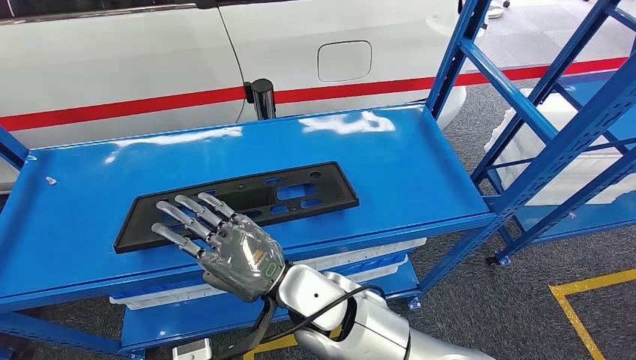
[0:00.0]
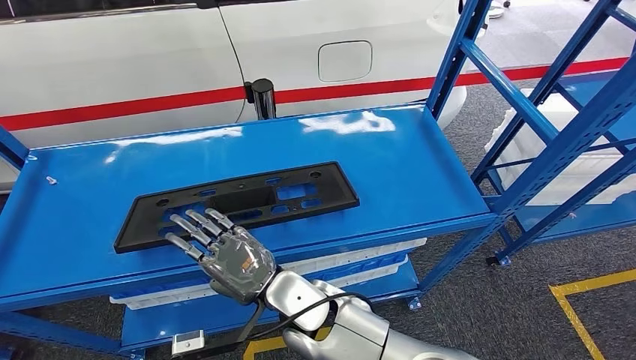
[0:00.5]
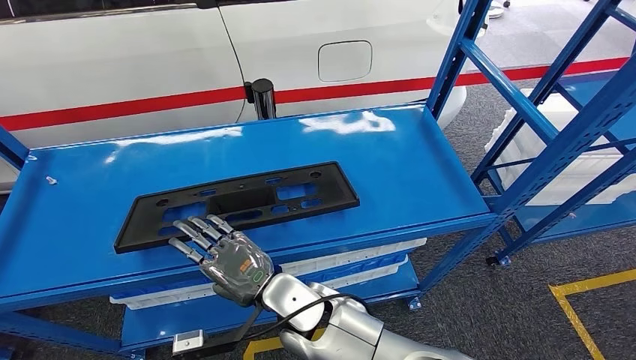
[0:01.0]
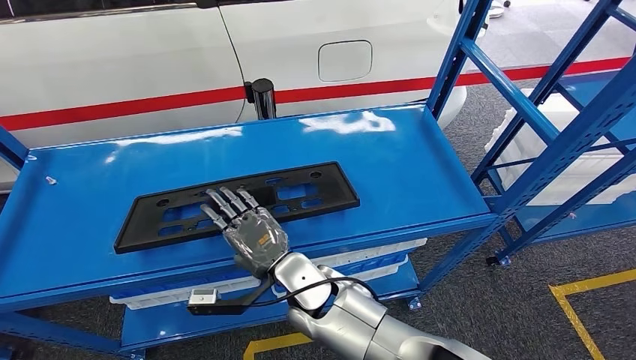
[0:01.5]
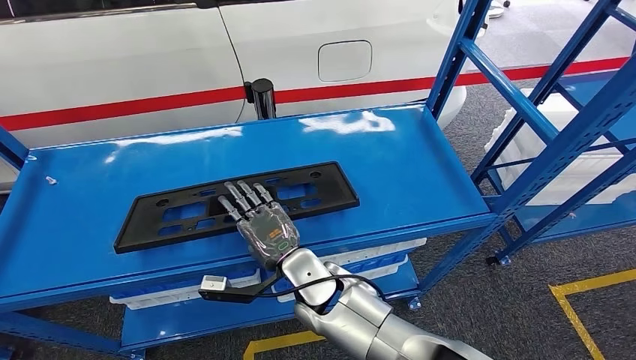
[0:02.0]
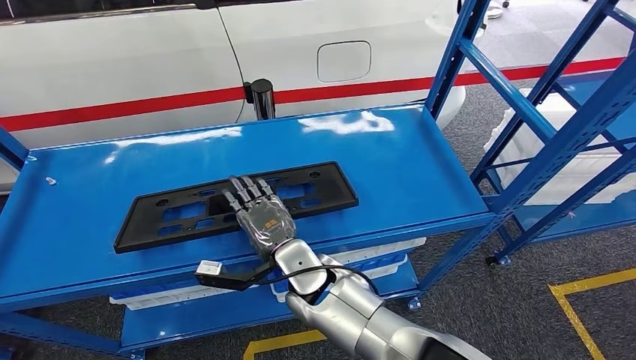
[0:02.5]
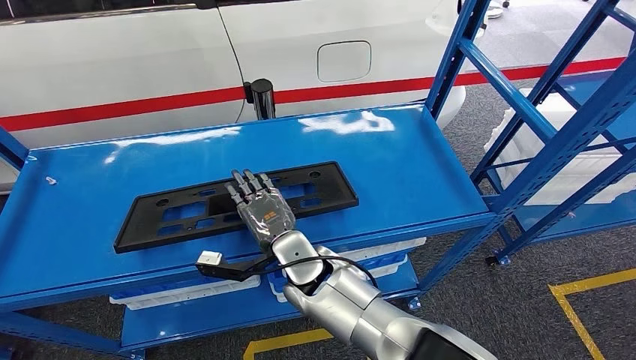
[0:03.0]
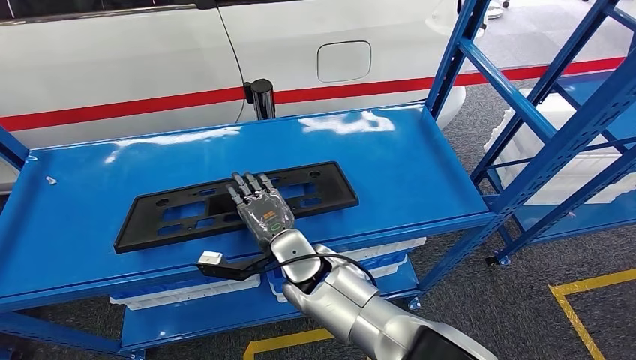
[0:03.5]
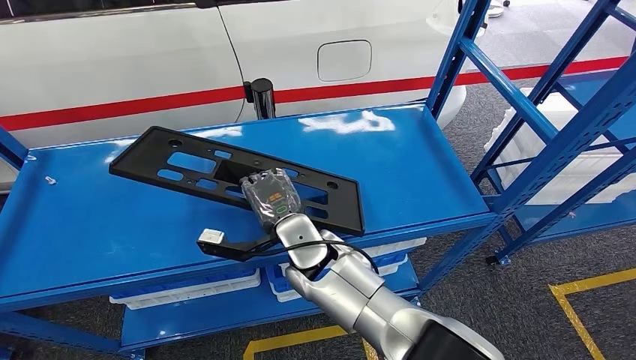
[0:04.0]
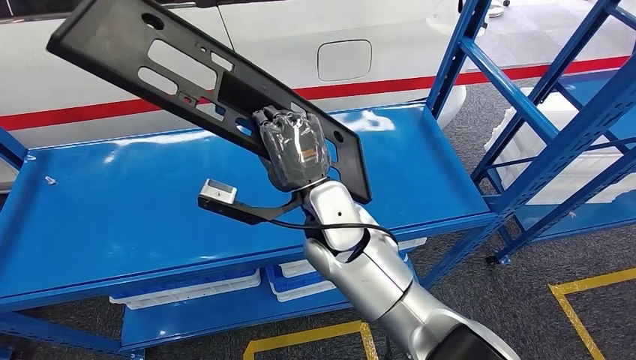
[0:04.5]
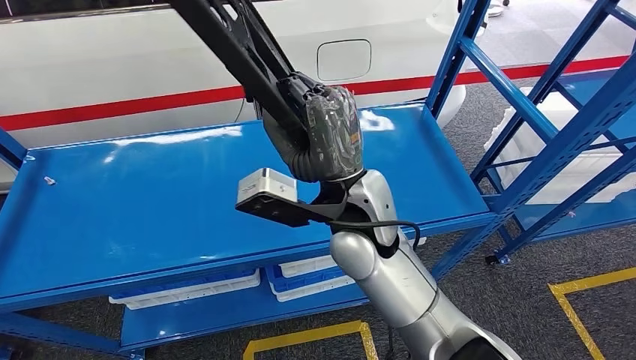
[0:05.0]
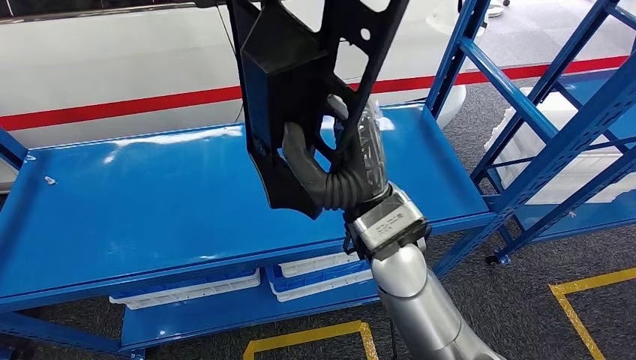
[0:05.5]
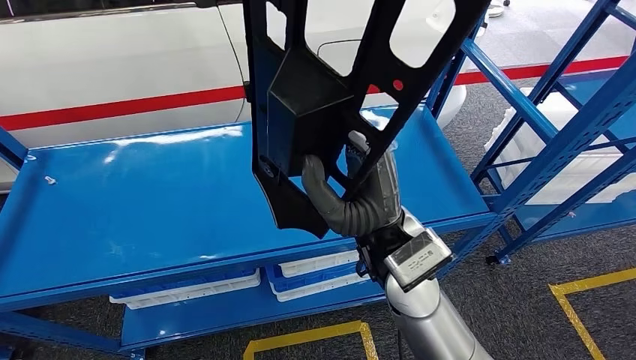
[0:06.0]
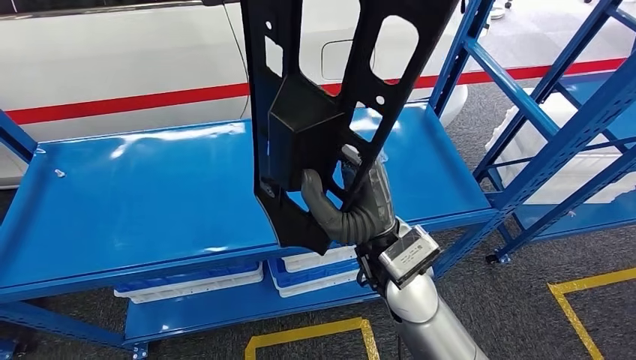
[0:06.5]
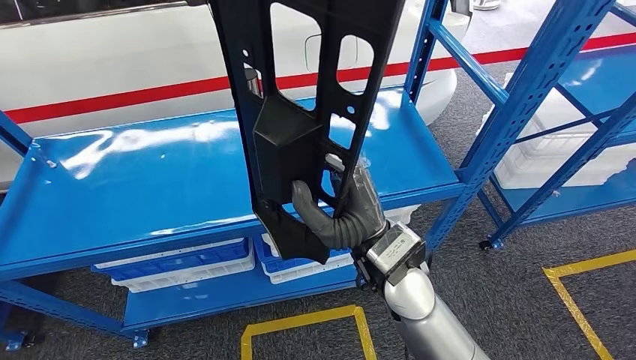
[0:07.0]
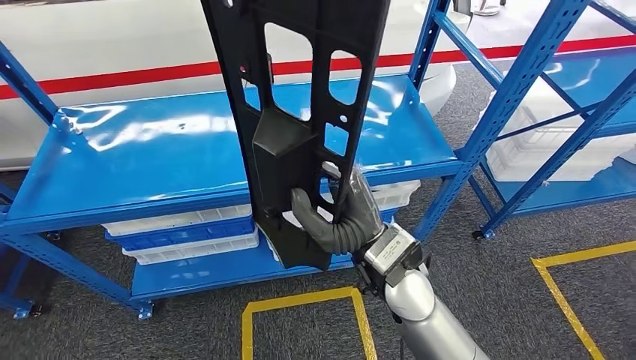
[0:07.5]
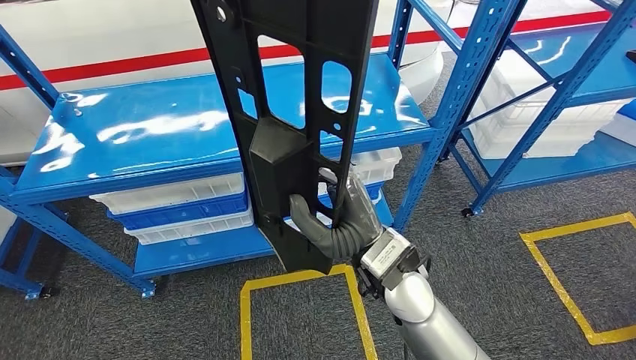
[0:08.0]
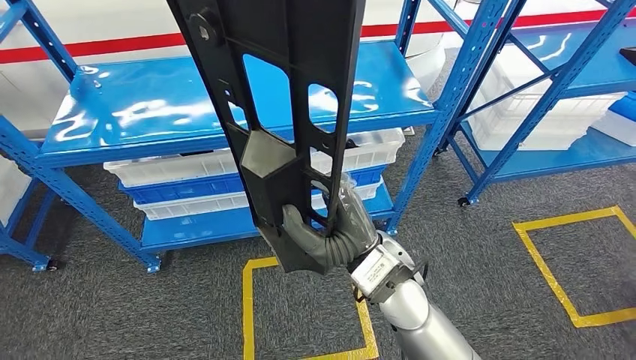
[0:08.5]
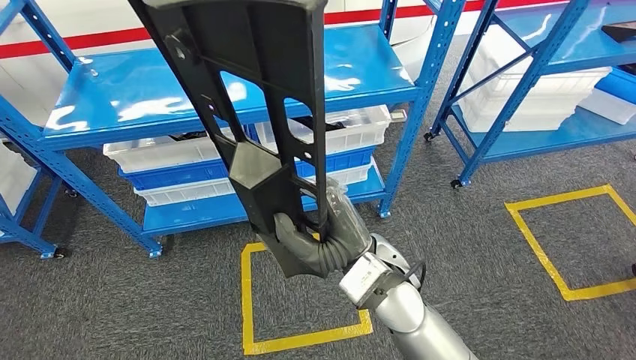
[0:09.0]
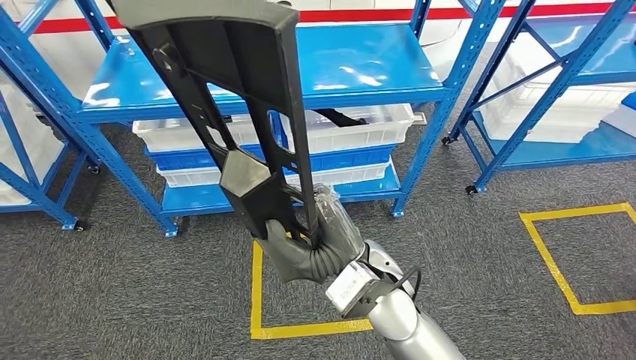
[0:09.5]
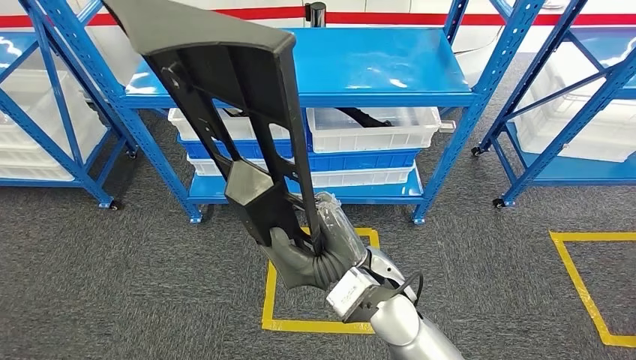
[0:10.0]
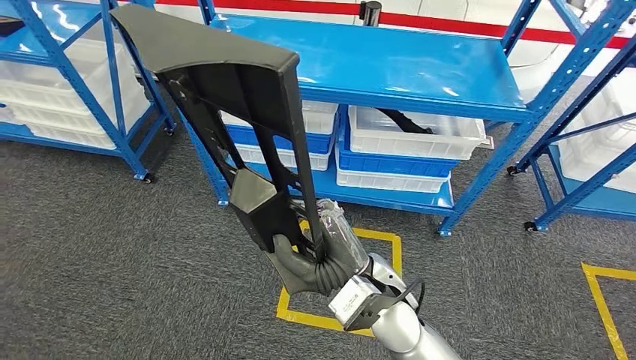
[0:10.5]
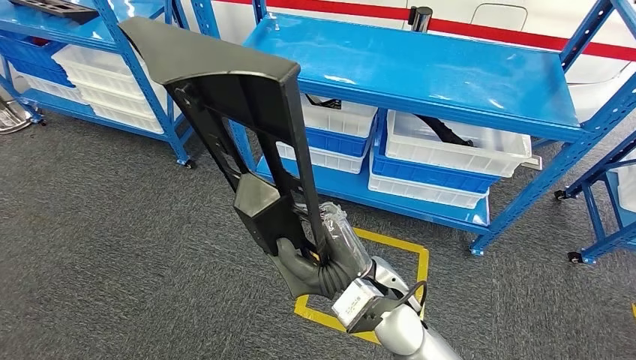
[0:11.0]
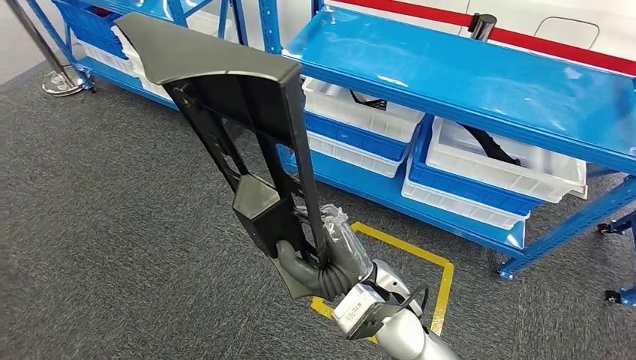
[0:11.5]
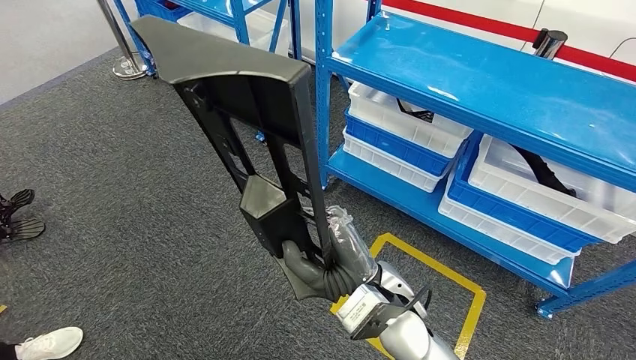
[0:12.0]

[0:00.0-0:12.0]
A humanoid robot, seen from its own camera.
Step, 0:00.0 to 0:08.0: Pick up the large material from the shelf.
0:00.0 to 0:02.0: The right hand heads downward, covering roughly 5 cm.
0:02.0 to 0:04.0: The right hand ends up roughly 5 cm from where it was.

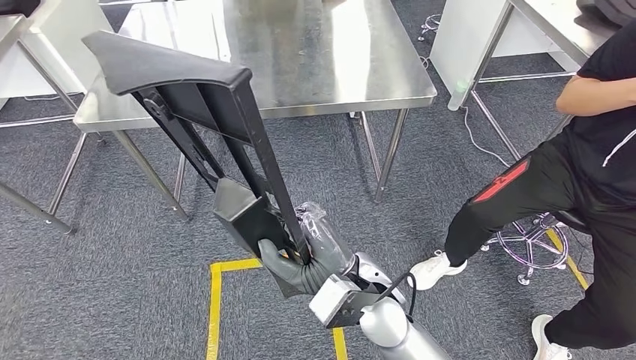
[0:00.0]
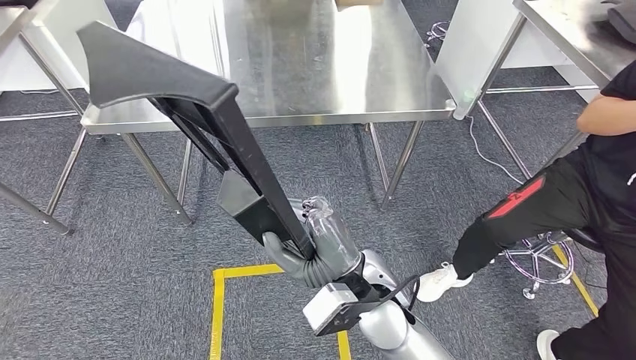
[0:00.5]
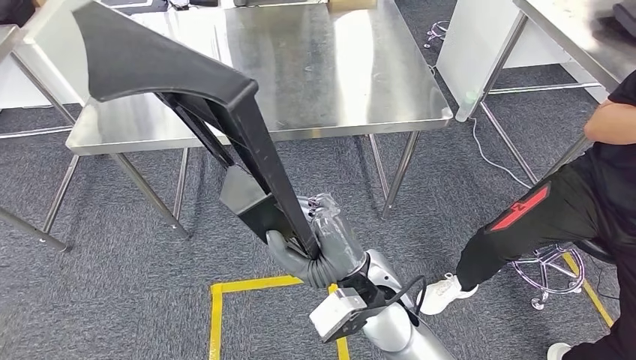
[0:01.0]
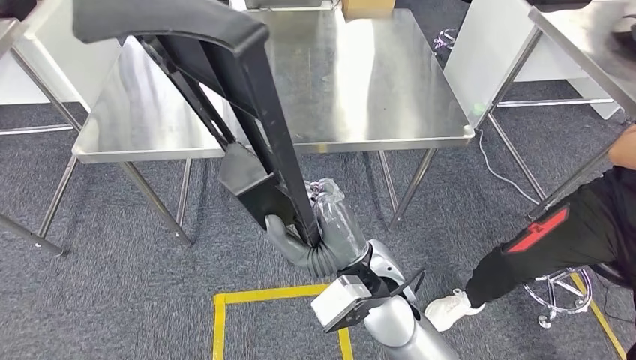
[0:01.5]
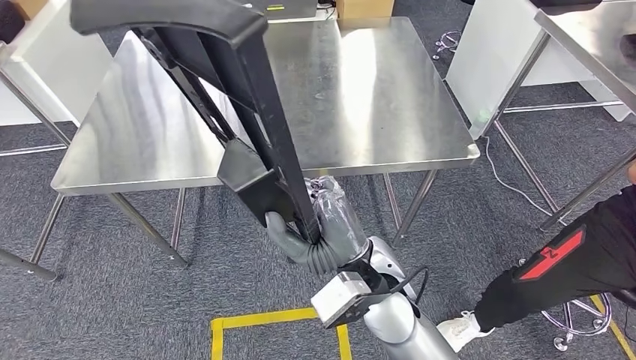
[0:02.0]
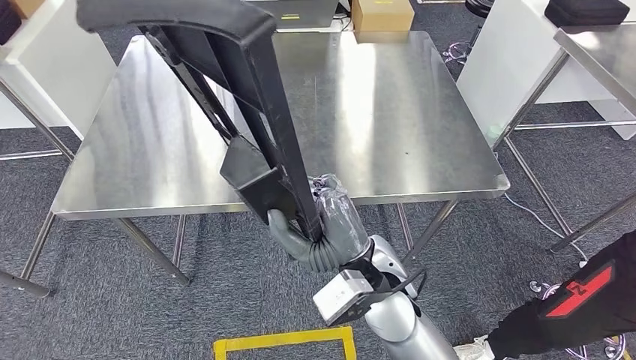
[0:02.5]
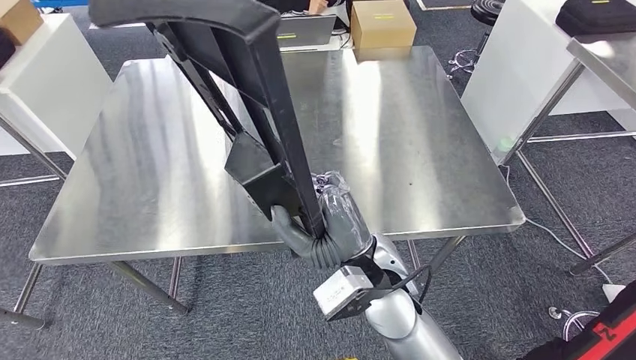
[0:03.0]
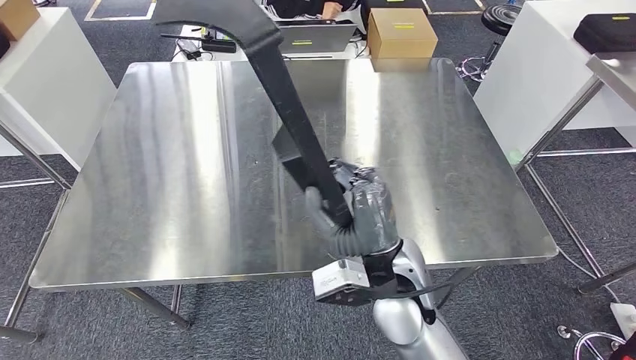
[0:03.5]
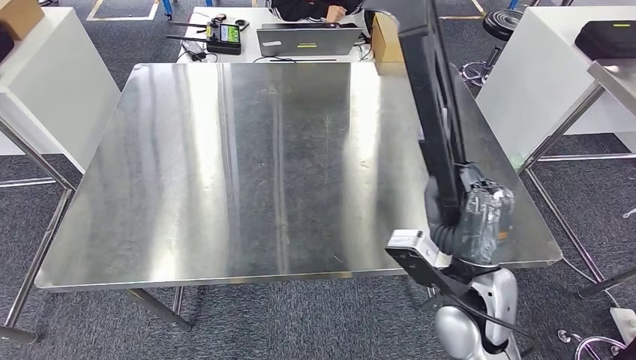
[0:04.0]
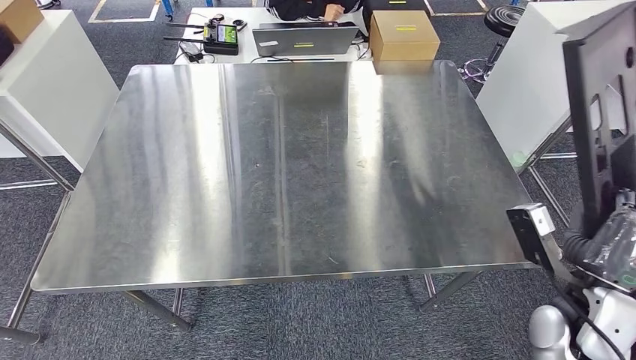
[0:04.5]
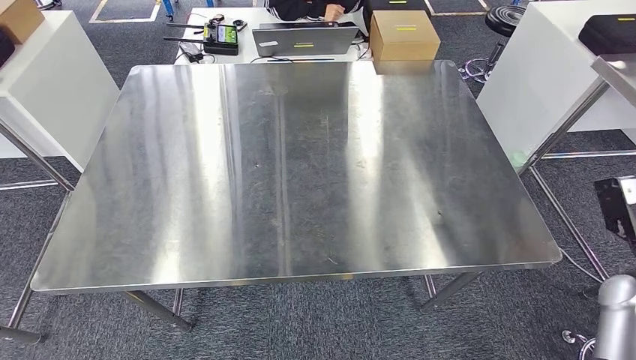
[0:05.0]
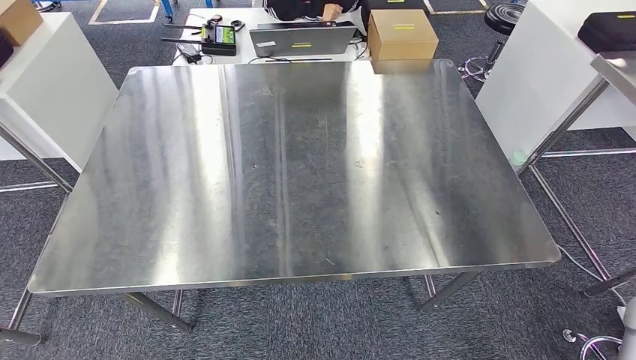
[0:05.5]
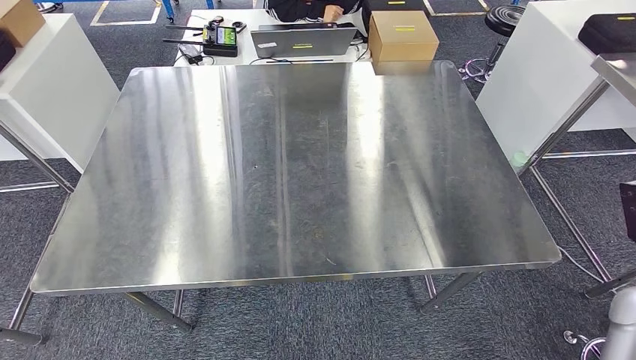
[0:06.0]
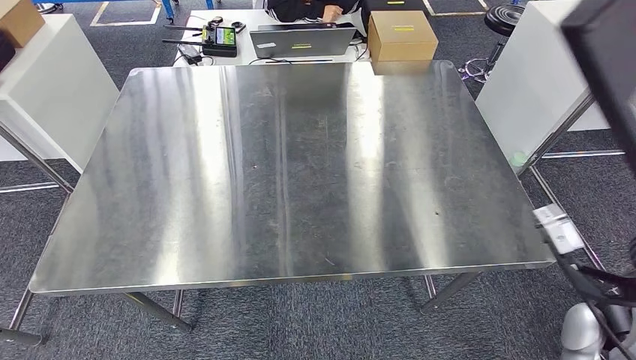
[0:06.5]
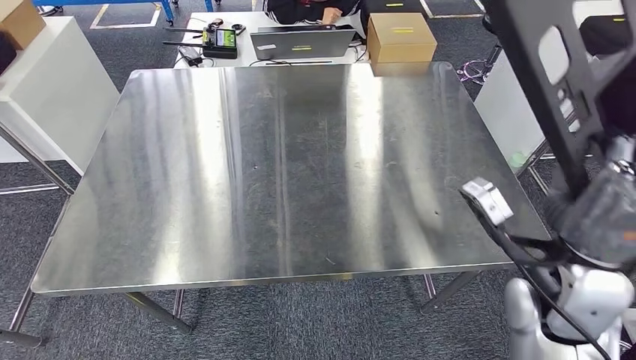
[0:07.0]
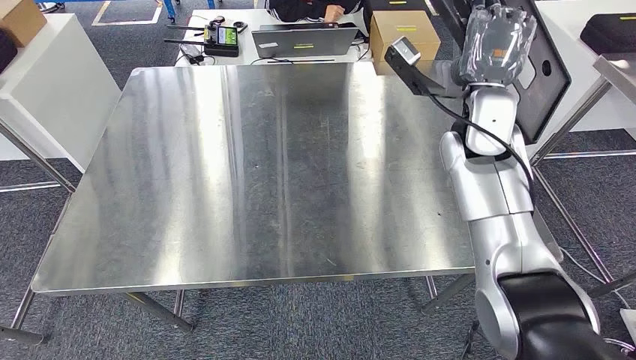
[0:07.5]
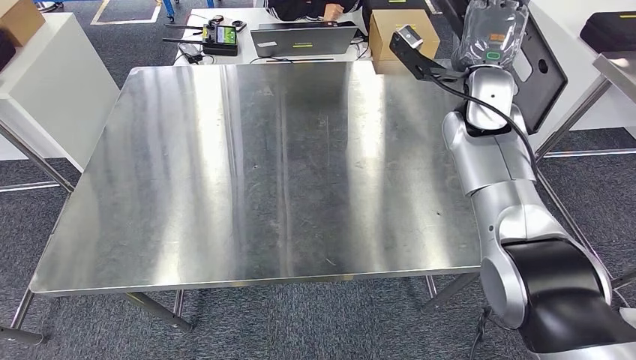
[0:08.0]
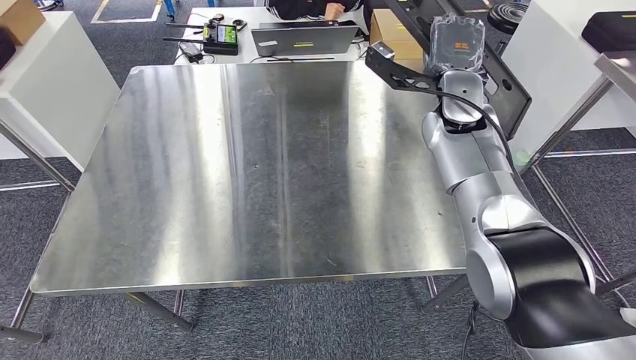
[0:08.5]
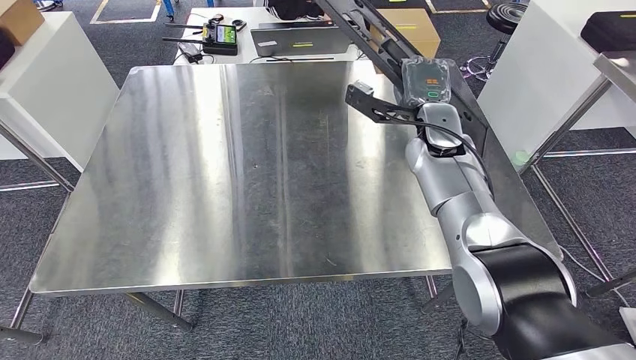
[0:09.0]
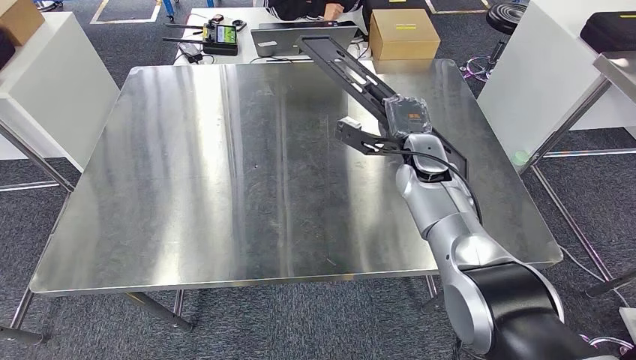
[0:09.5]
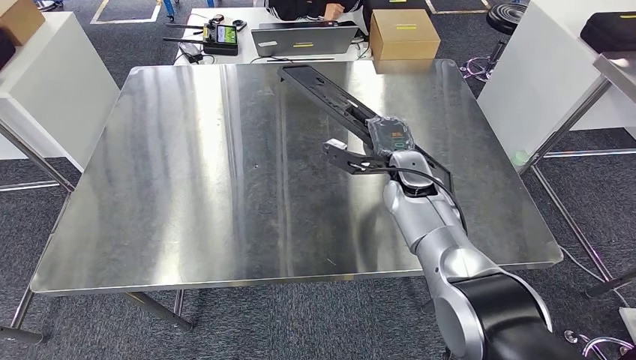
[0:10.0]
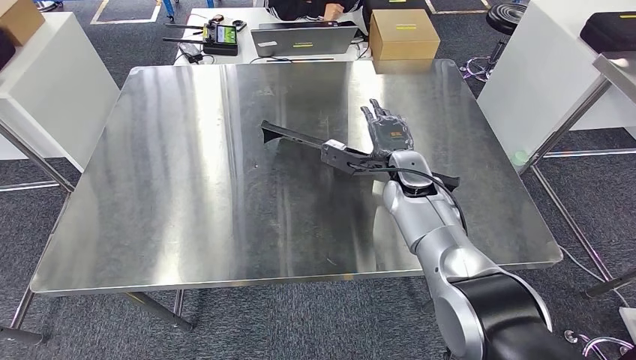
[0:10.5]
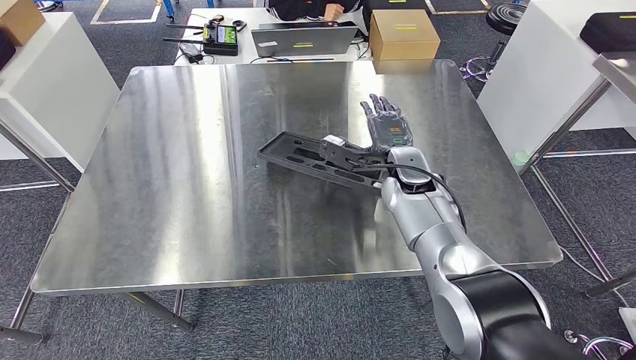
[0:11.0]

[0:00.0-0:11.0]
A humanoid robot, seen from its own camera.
0:09.0 to 0:11.0: The right hand is displaced downward by some 5 cm.
